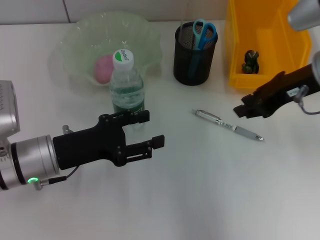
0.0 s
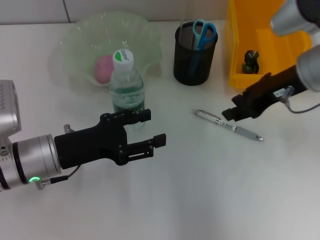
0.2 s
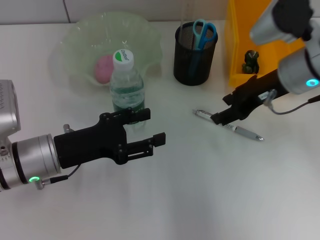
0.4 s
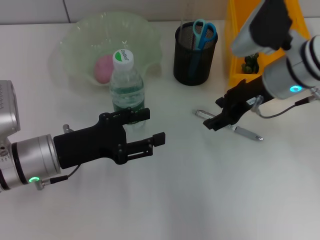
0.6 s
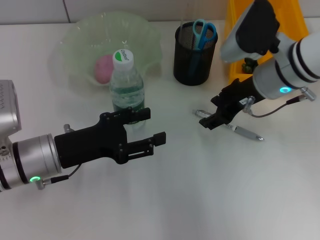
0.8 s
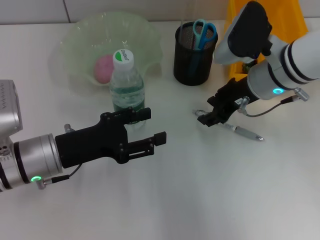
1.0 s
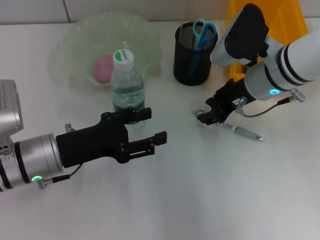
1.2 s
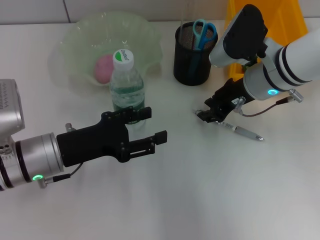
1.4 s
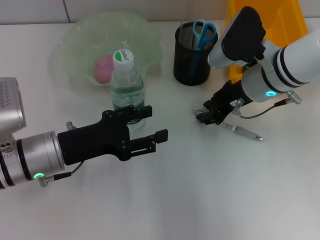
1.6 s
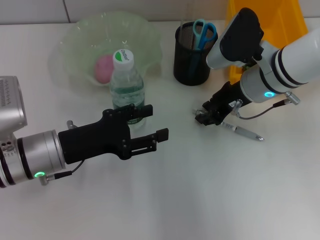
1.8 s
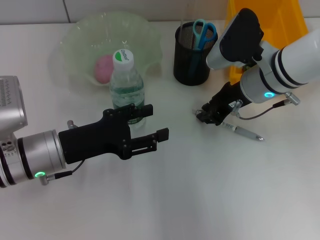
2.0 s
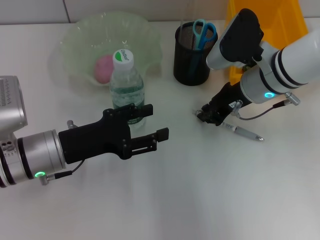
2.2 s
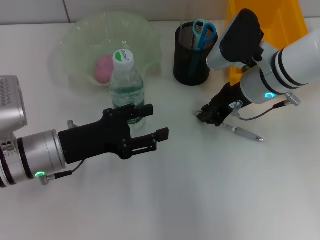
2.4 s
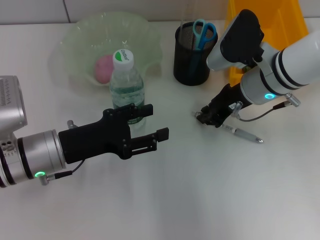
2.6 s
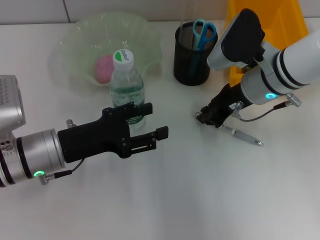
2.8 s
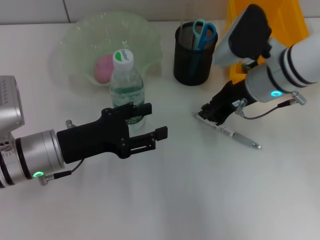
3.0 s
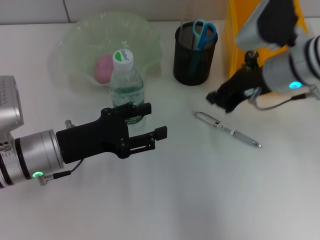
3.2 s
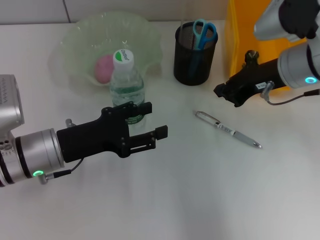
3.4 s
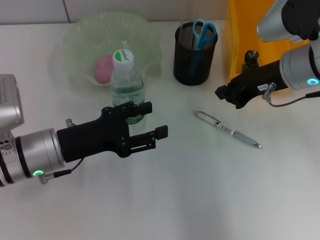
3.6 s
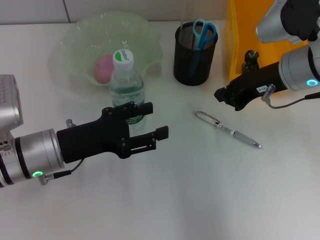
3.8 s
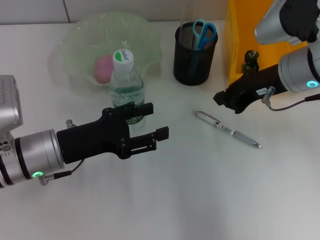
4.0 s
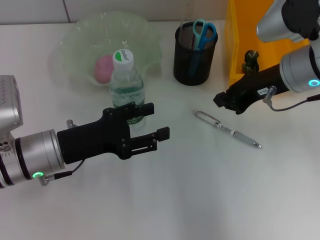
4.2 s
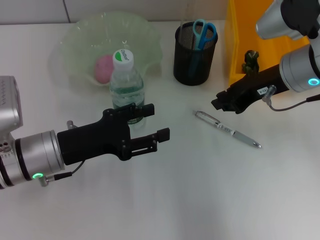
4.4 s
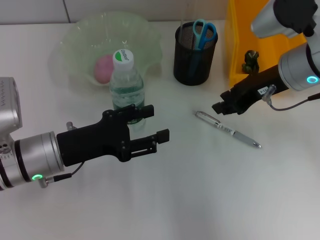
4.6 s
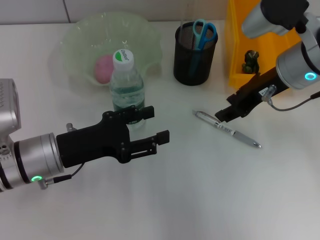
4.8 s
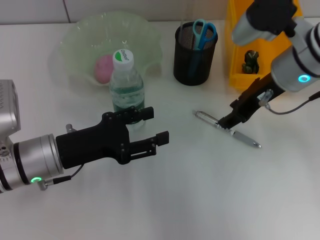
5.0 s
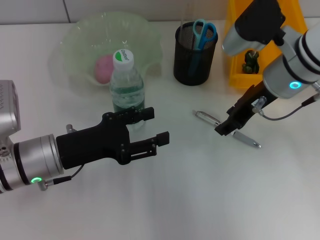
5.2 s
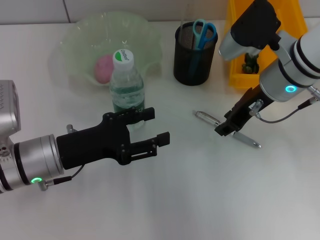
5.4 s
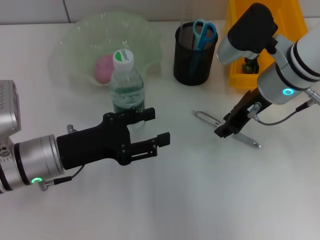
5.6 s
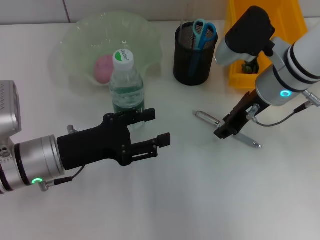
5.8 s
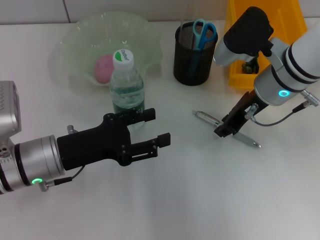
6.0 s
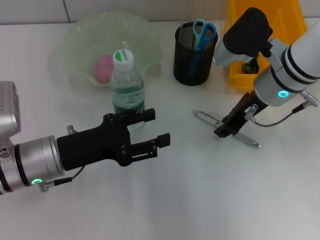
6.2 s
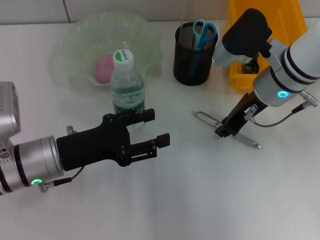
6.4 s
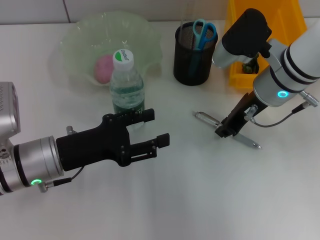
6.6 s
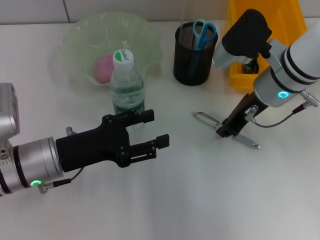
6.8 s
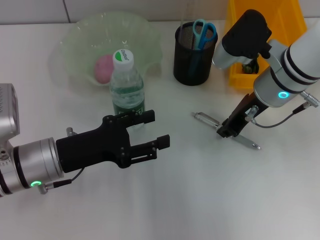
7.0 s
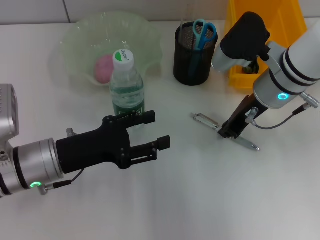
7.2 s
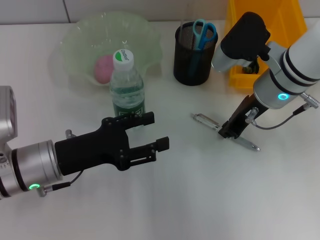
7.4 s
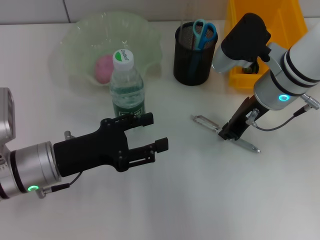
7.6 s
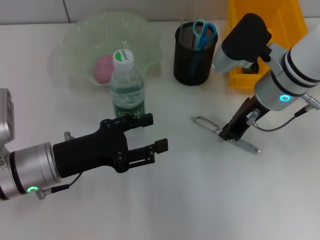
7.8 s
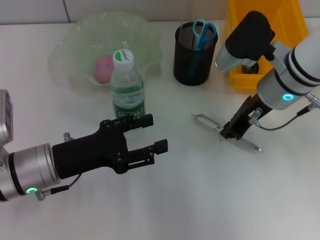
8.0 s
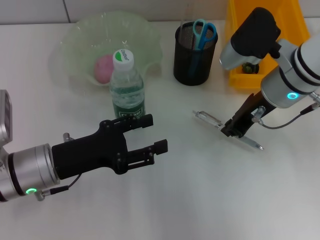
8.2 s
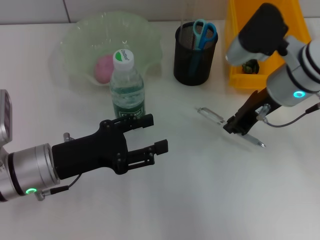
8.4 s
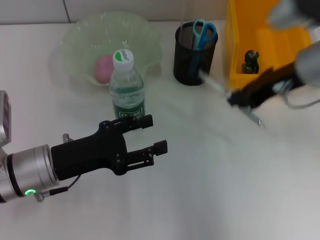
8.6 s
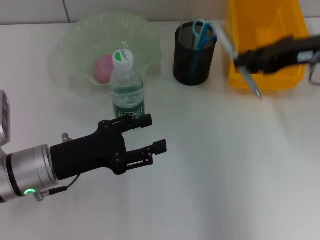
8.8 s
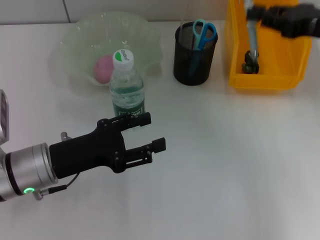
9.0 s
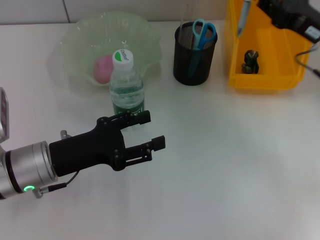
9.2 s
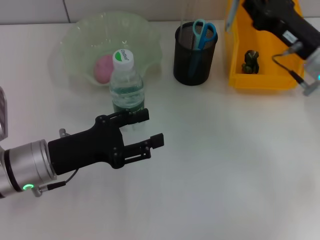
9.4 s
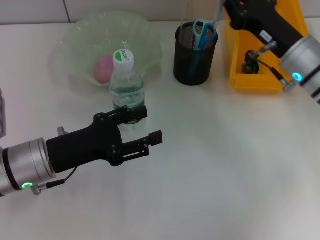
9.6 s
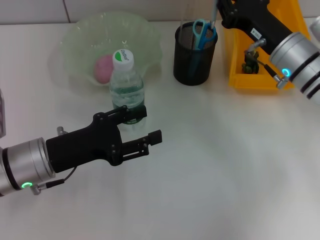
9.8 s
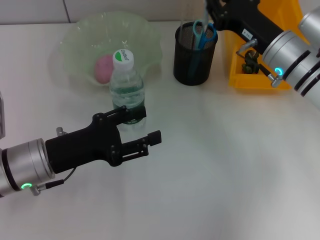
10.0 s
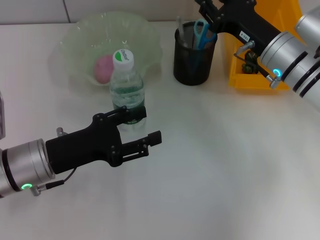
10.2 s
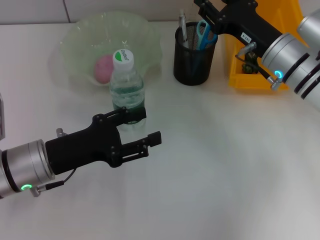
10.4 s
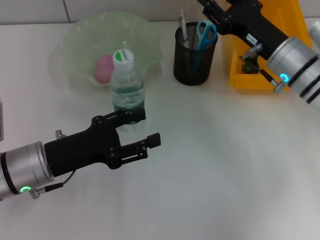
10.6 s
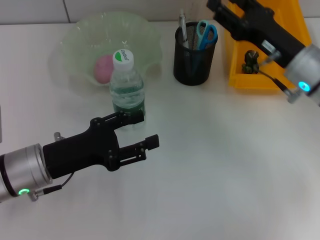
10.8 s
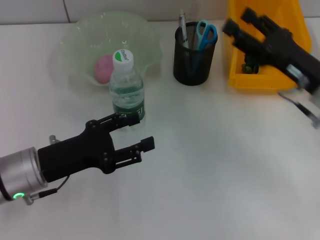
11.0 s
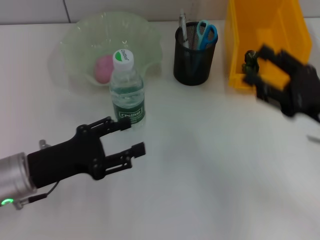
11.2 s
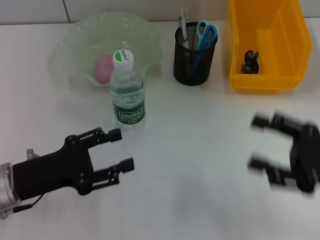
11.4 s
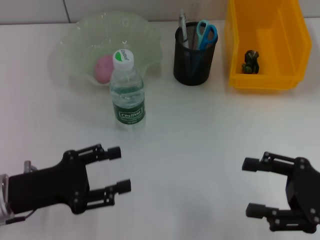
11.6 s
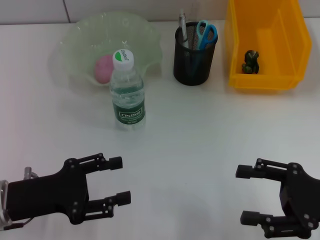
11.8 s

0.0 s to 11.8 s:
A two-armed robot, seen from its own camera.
Step, 0.0 to 7.8 s: Grab the gray spring-action pen with the right hand.
Step, 8.0 to 10.2 s: Place the gray spring-action pen into the pen holder with the right hand.
0.0 to 1.4 s: The right gripper is displaced downward and to the left by about 10 cm, and opens up.
1.4 to 3.0 s: The right gripper closes.
3.0 to 4.4 s: The right gripper shifts by roughly 5 cm.
4.4 to 6.0 s: The right gripper opens.
6.0 to 7.4 s: Both grippers stay put.
7.4 to 8.8 s: The right gripper shifts about 10 cm to the right and upward.
8.8 to 10.4 s: The right gripper is displaced downward and to the left by approximately 15 cm.
10.4 to 11.8 s: The right gripper moves backward and to the right, approximately 20 cm, and opens its fingers; the left gripper changes place by roughly 5 cm.

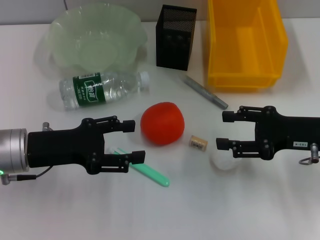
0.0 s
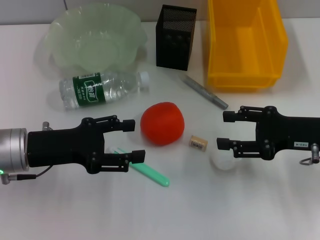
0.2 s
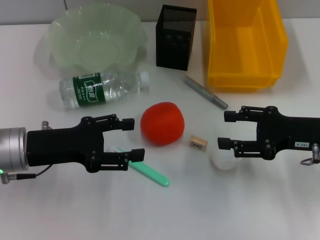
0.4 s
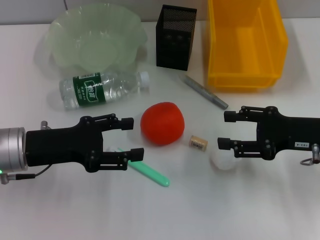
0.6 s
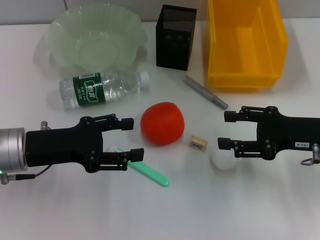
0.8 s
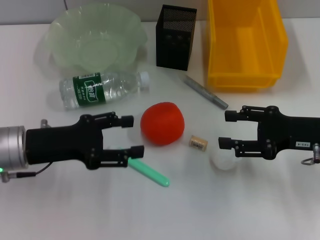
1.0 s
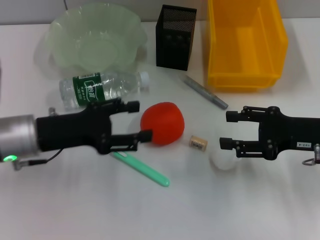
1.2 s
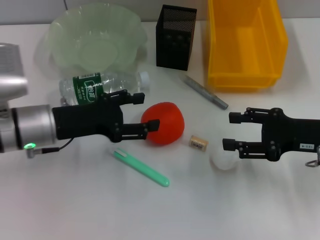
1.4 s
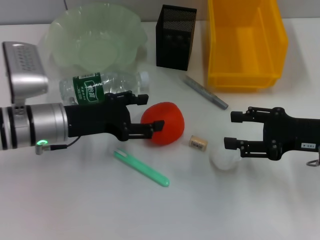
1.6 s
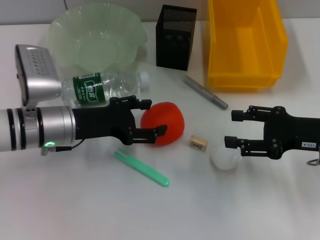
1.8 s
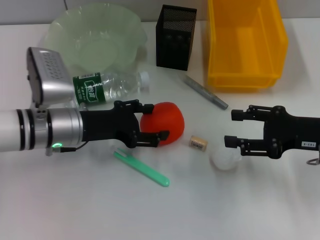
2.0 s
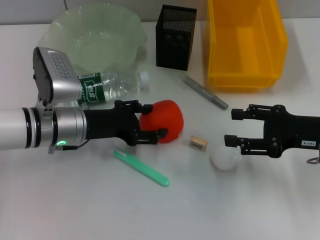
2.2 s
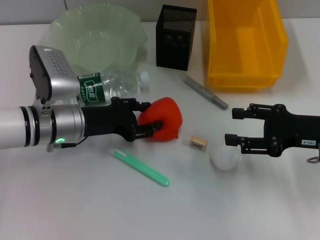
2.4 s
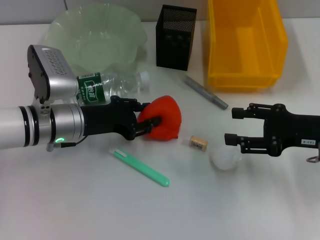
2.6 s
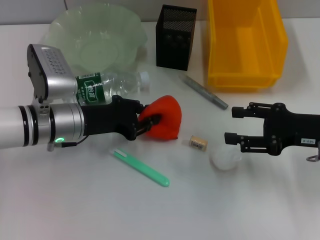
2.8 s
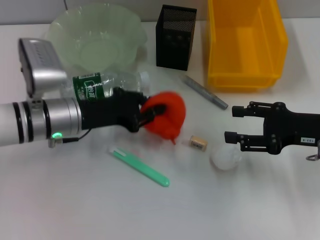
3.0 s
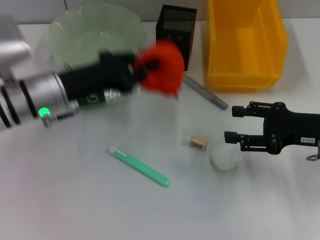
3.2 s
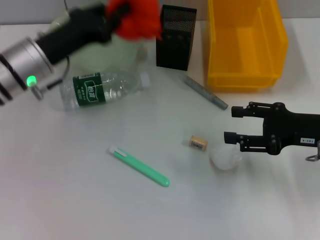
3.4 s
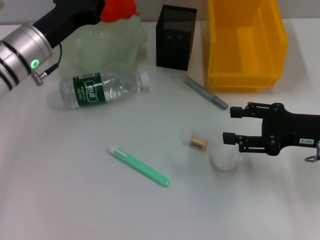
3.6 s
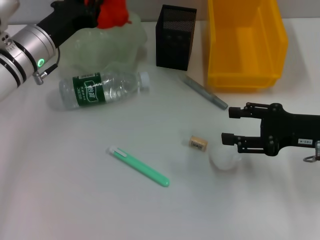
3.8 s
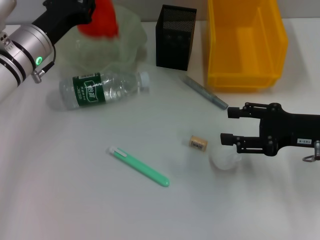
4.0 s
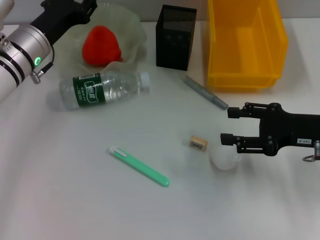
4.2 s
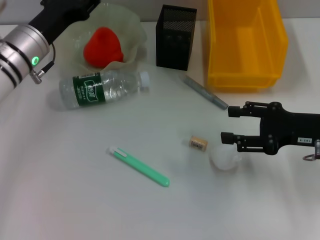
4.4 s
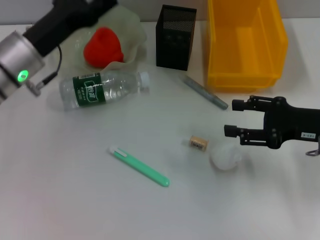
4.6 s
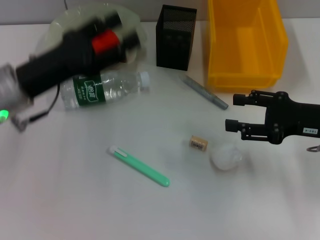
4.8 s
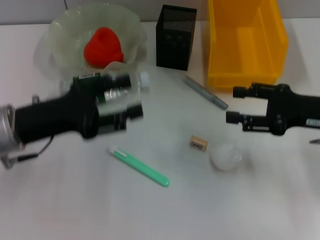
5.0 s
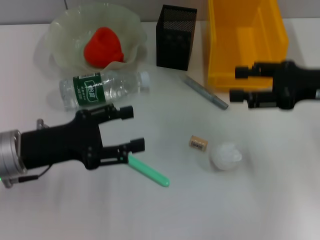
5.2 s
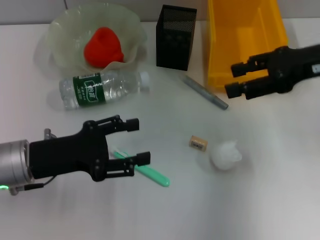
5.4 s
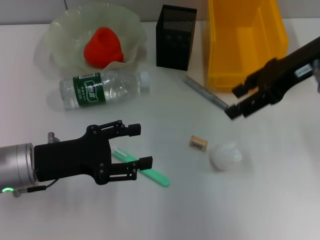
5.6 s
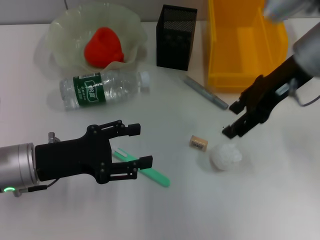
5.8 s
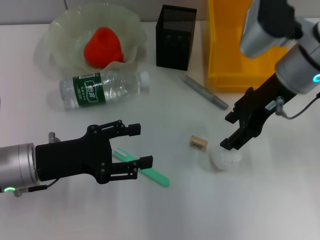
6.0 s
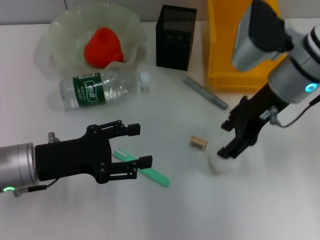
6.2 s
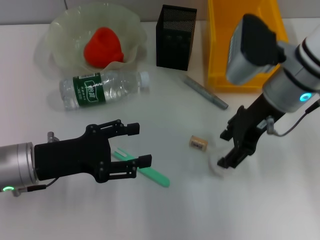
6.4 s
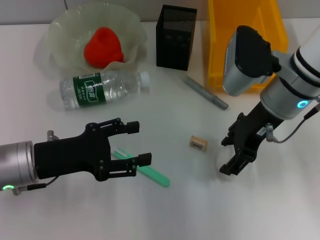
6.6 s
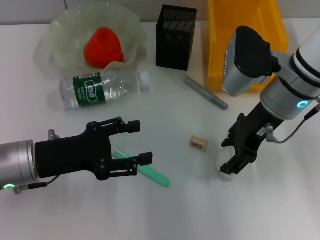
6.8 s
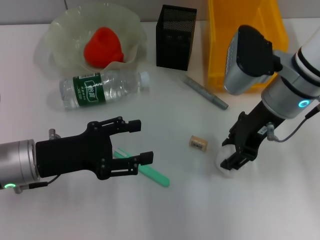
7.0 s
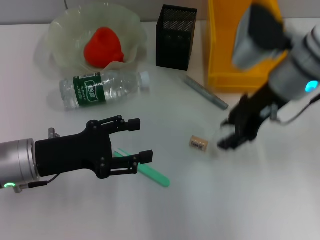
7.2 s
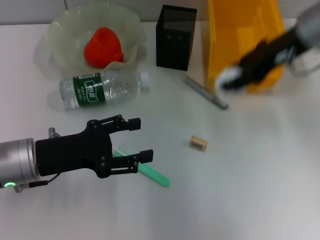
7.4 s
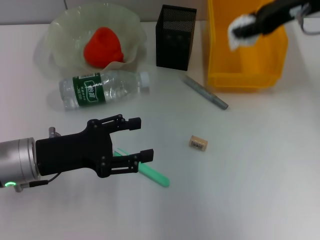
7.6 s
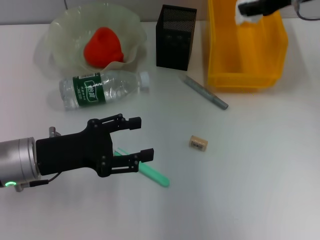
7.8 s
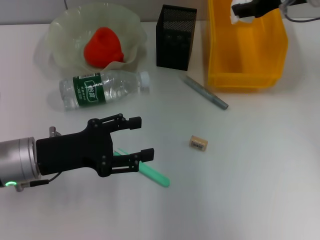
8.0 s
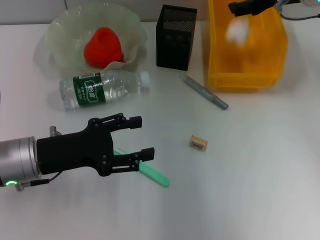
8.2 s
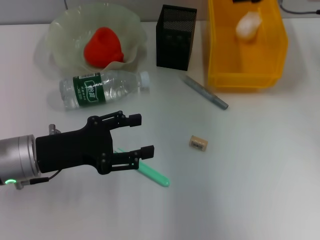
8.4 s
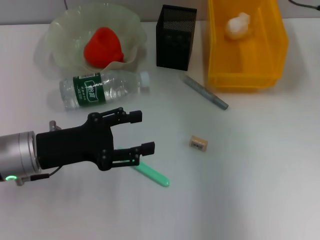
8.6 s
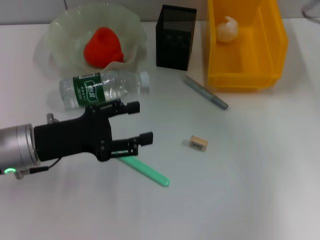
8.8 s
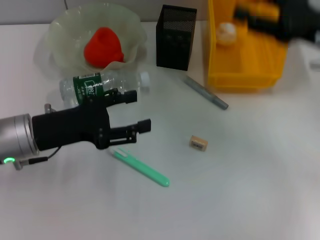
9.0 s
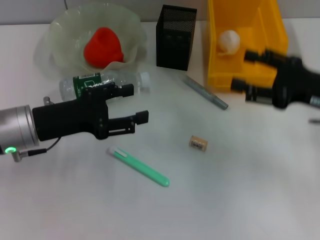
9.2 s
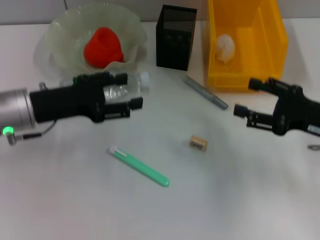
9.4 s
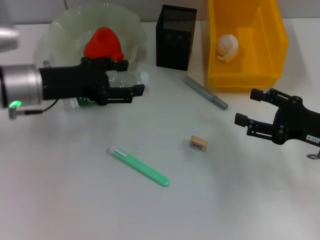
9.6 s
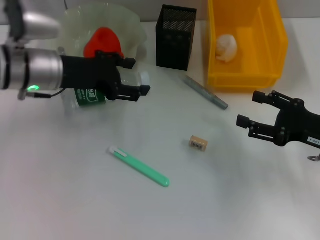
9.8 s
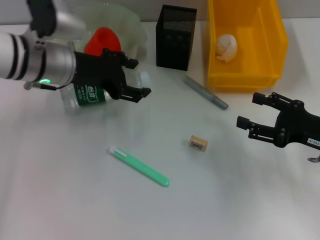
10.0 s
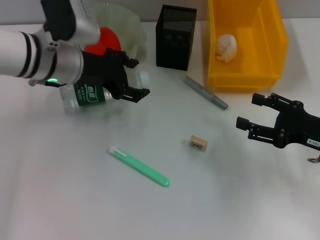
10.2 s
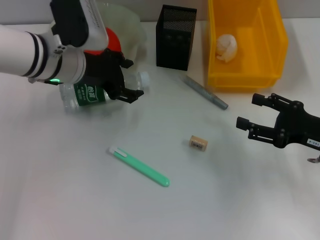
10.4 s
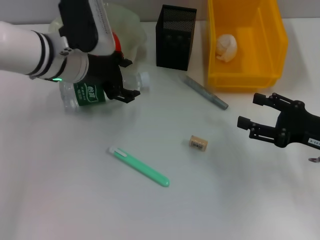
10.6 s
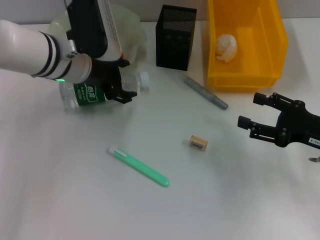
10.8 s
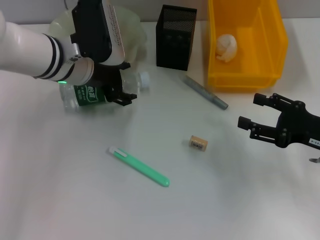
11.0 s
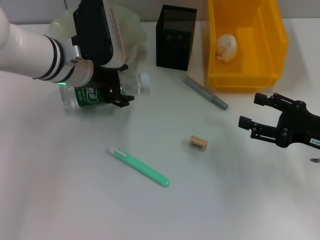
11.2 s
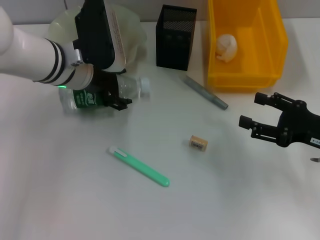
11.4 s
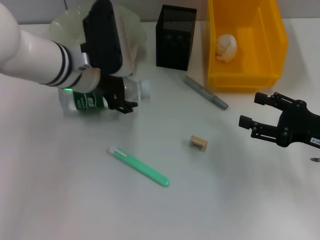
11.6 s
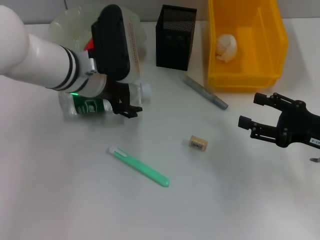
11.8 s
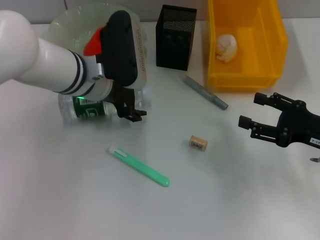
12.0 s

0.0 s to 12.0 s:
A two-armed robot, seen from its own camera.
Step, 0.0 to 2.6 s: Grab the orange with the left hand.
Step, 2.8 to 4.4 s: Place the orange into the fruit bowl with the left hand.
Step, 4.6 to 6.8 s: Grab the paper ball with the right hand.
Step, 7.0 to 8.4 s: Place the paper ball into the trash can with the right hand.
0.0 to 1.6 s: The left gripper shifts by roughly 5 cm.
1.6 to 3.0 s: The left gripper closes up.
3.0 to 4.4 s: The left gripper moves forward, roughly 5 cm.
4.4 to 6.0 s: The right gripper is displaced to the left, upward and forward by approximately 15 cm. Meanwhile the left gripper heads backward, covering about 15 cm, and opens up.
6.0 to 7.6 s: The right gripper heads upward and to the right, covering approximately 10 cm.
7.6 to 9.0 s: The right gripper travels downward, backward and to the right by approximately 10 cm, and opens its fingers.
9.0 to 10.4 s: The right gripper is displaced downward and backward by roughly 15 cm. Meanwhile the left gripper shifts some 15 cm forward and to the right.
10.4 to 12.0 s: The left gripper shifts by roughly 5 cm.
